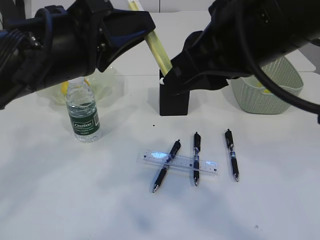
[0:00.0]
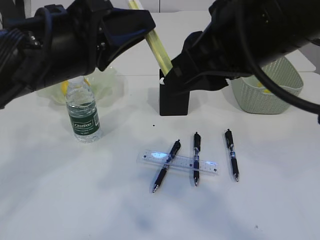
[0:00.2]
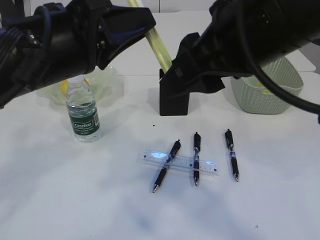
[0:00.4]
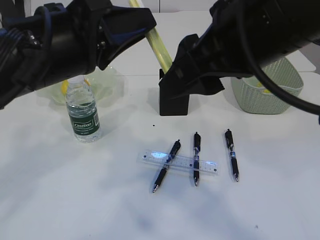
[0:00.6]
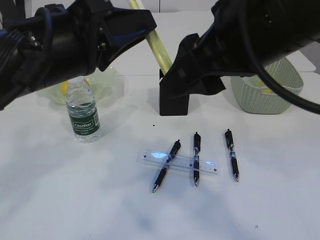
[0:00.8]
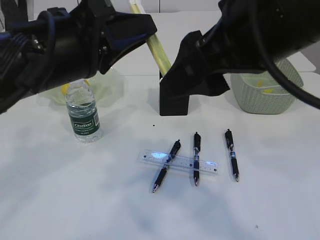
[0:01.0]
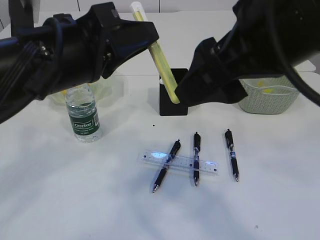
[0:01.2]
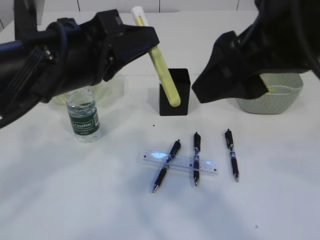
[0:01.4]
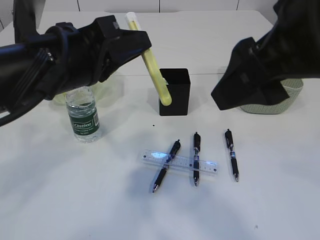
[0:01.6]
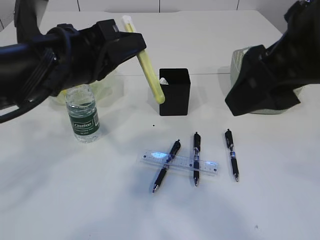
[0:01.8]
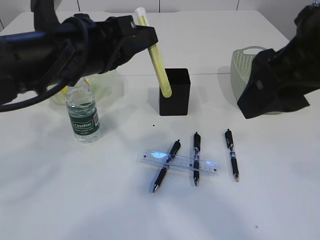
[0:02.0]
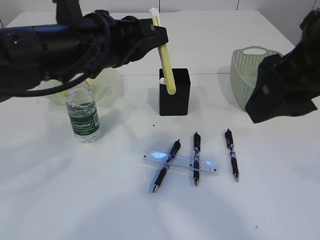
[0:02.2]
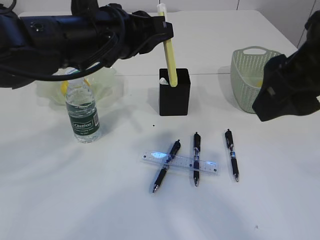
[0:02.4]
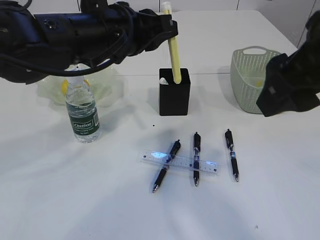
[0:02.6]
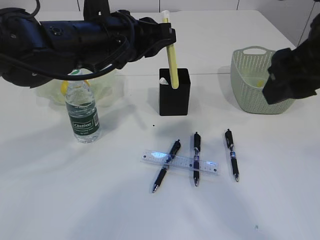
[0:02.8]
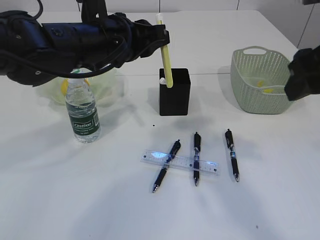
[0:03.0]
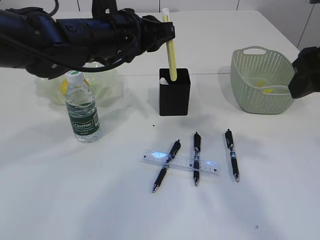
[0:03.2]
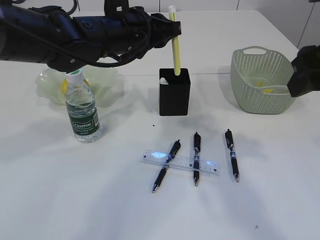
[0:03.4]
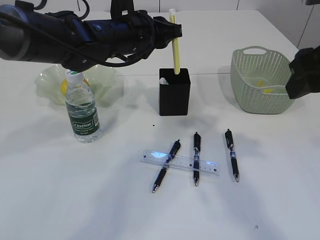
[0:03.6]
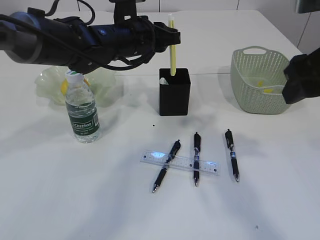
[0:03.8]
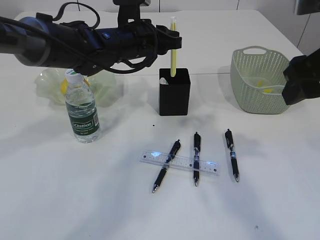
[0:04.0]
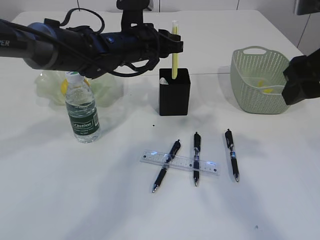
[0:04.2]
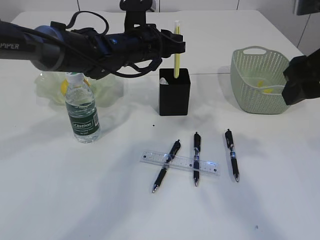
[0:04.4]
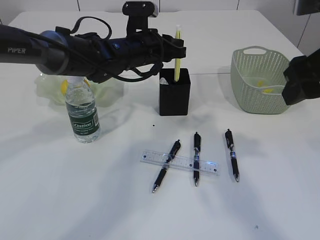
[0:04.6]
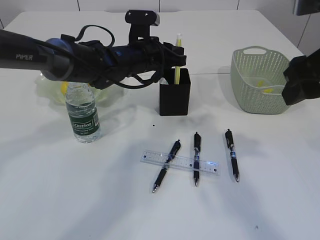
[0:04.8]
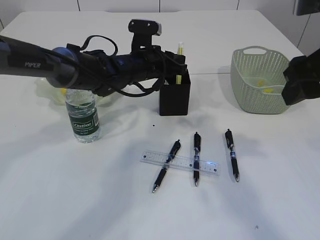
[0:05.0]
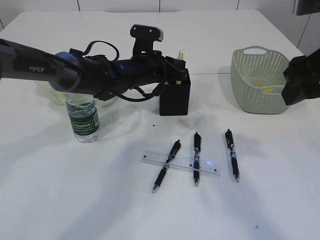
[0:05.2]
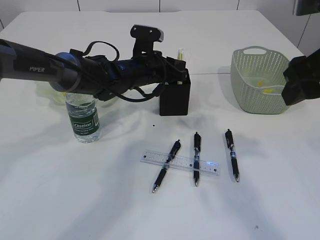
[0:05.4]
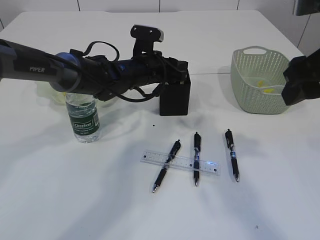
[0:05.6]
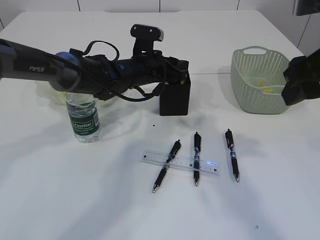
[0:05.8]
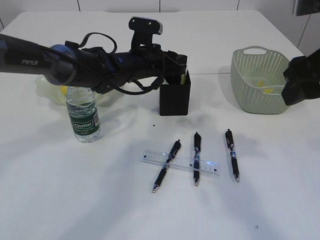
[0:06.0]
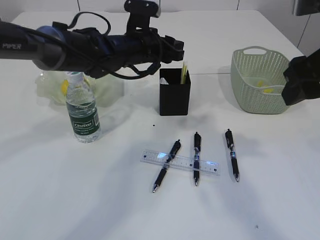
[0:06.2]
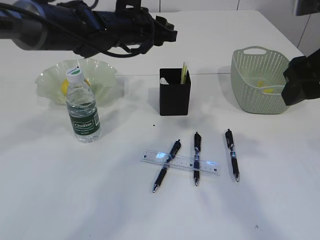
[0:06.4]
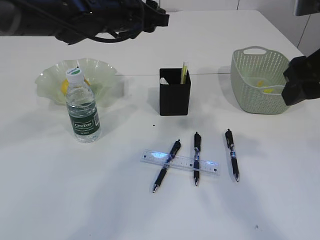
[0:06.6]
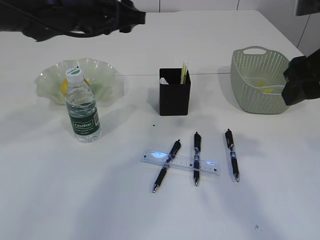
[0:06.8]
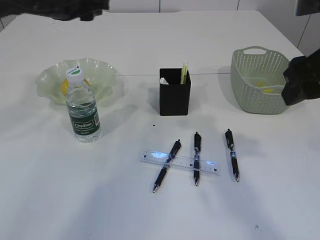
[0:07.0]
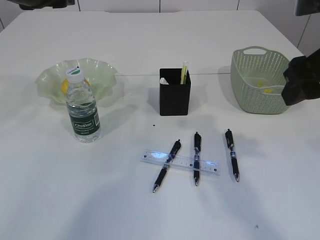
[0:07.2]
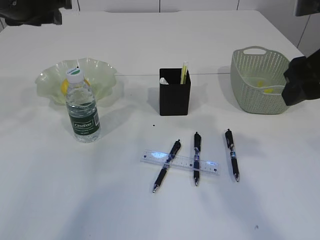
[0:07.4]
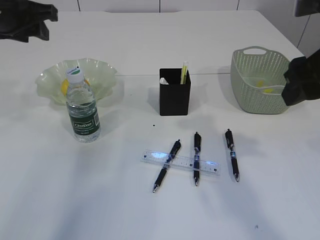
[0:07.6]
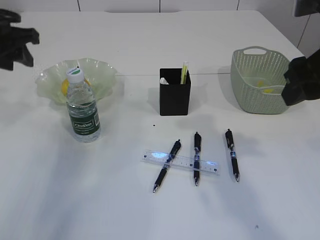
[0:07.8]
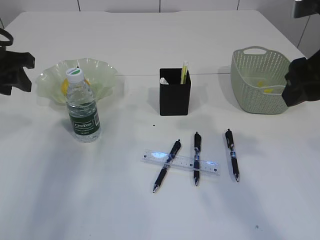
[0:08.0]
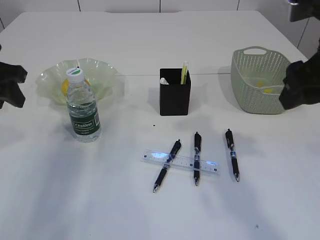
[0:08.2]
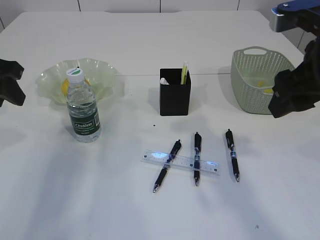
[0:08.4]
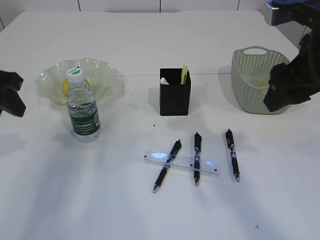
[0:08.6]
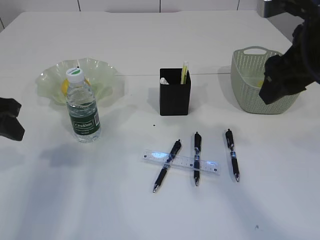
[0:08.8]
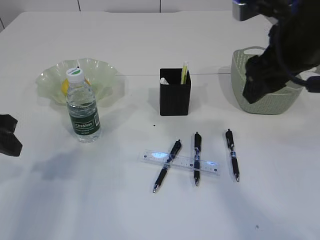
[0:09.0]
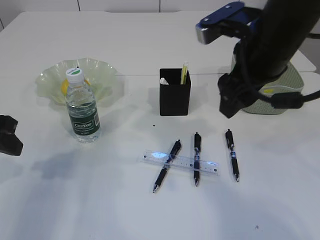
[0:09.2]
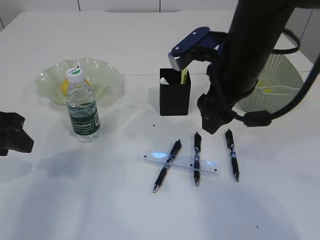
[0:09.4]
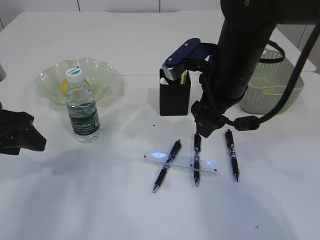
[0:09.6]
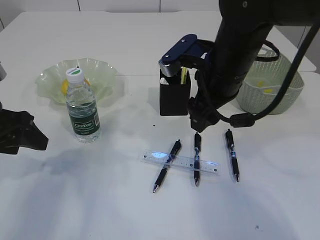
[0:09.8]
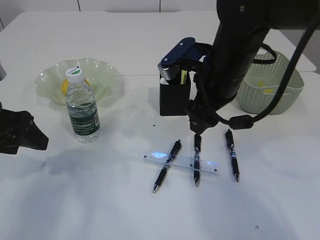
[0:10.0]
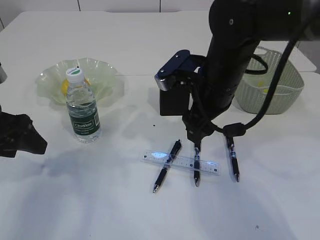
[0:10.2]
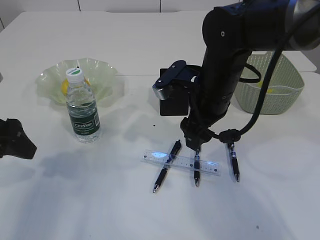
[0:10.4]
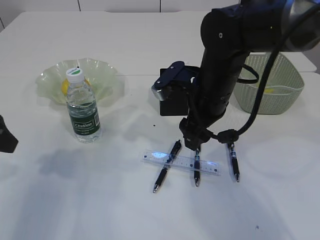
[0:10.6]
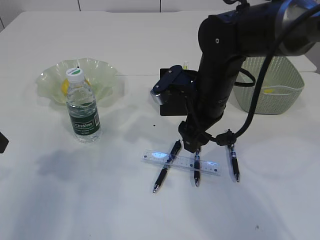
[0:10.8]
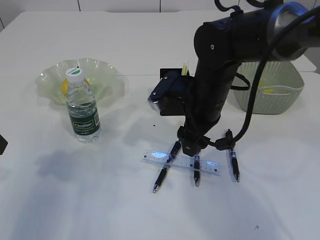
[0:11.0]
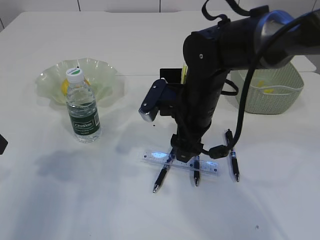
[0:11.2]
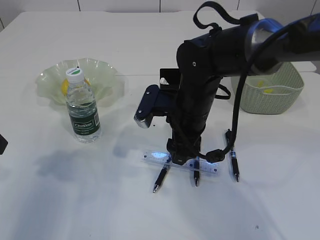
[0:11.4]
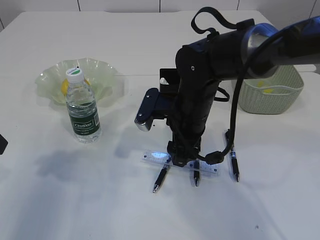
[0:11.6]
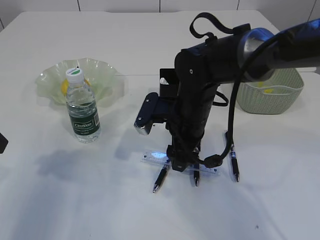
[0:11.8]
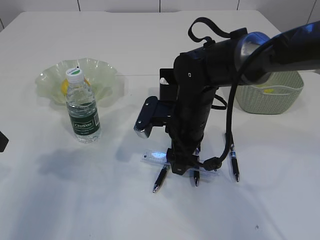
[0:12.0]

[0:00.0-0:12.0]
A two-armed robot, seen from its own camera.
Step, 0:01.4 to 0:06.2: place the yellow knife into the pen holder.
0:00.0 to 0:01.6: The right gripper opens its fingers.
0:01.6 to 0:03.0: The right gripper goes about 10 cm to the right, while the left gripper heads forward, covering roughly 10 cm.
0:03.0 to 0:04.4: The left gripper heads forward and downward, covering about 10 cm.
0:04.4 to 0:06.0: The left gripper opens its fingers.
0:06.0 to 0:07.6: The left gripper is displaced to the left and upward by approximately 25 cm.
0:07.6 to 0:09.0: The left gripper goes some 15 cm backward and downward. Meanwhile the right gripper moves approximately 5 cm.
0:09.0 to 0:10.4: The right gripper is displaced downward, to the left and forward by approximately 15 cm.
0:10.4 to 0:12.0: The right gripper is displaced downward by roughly 5 cm.

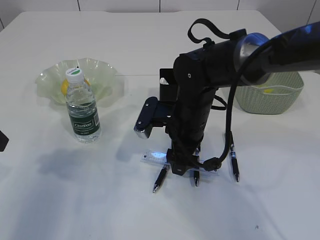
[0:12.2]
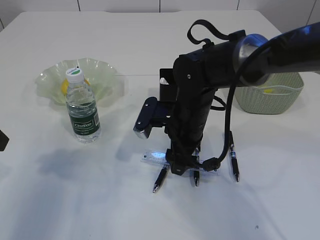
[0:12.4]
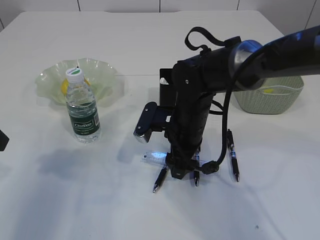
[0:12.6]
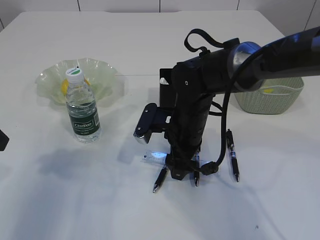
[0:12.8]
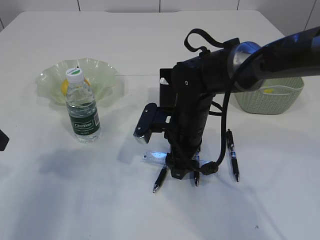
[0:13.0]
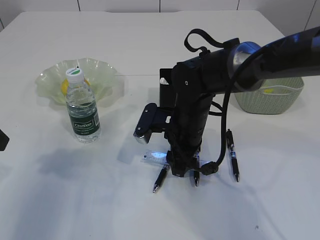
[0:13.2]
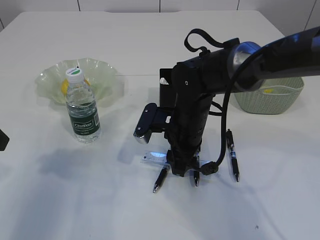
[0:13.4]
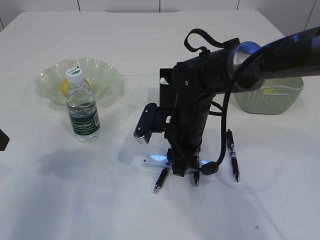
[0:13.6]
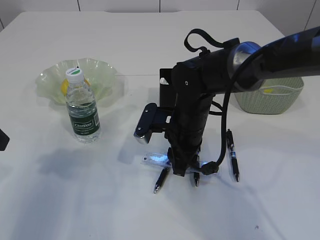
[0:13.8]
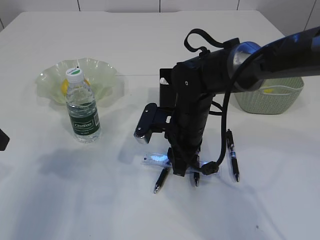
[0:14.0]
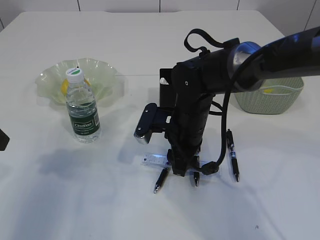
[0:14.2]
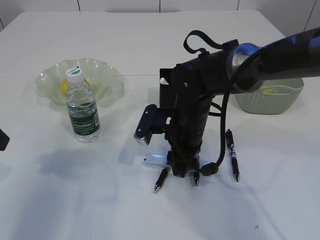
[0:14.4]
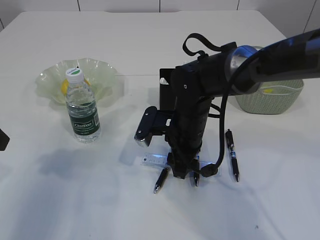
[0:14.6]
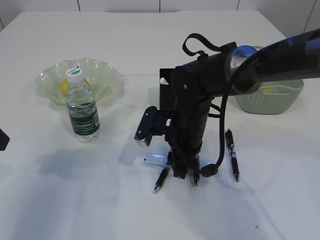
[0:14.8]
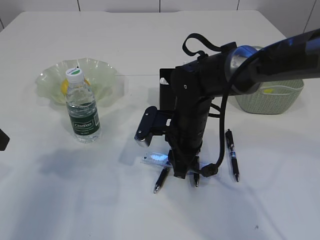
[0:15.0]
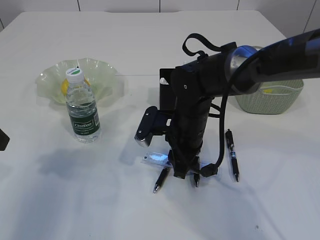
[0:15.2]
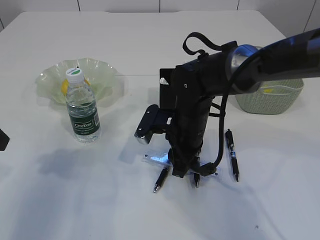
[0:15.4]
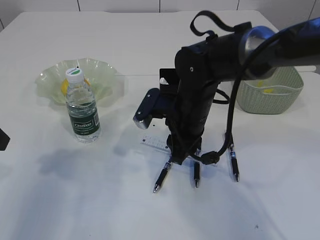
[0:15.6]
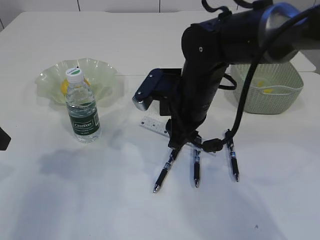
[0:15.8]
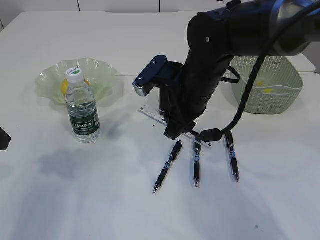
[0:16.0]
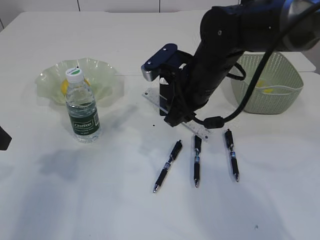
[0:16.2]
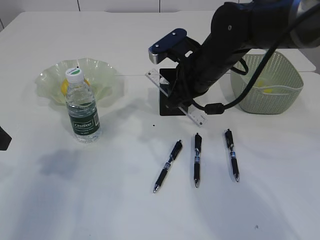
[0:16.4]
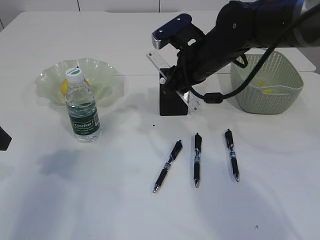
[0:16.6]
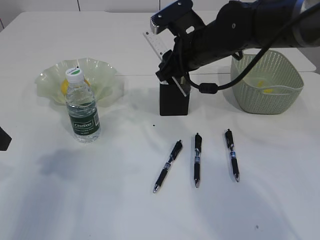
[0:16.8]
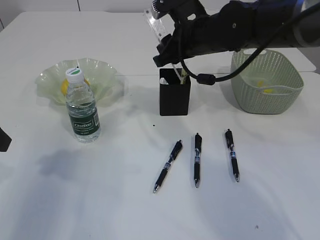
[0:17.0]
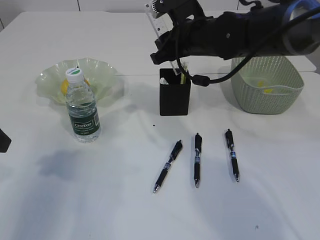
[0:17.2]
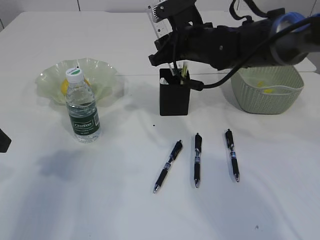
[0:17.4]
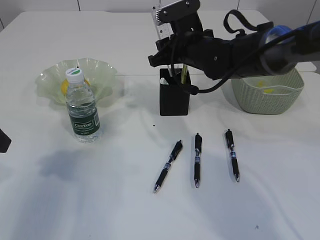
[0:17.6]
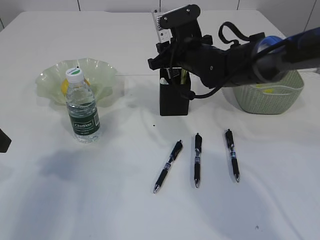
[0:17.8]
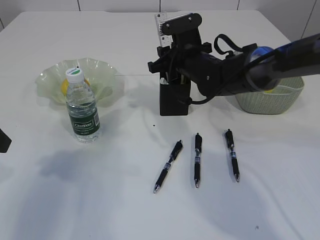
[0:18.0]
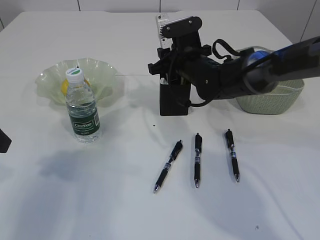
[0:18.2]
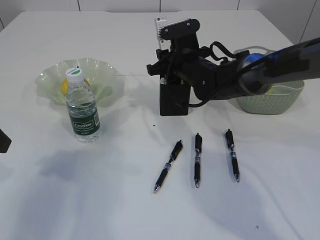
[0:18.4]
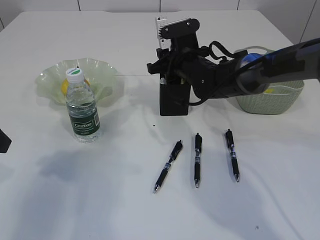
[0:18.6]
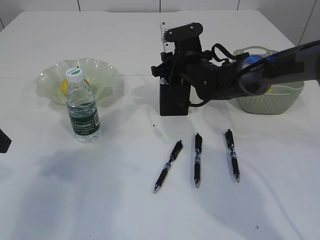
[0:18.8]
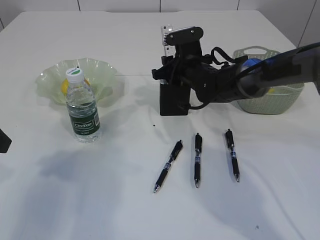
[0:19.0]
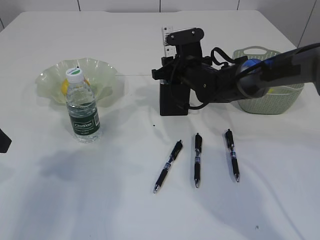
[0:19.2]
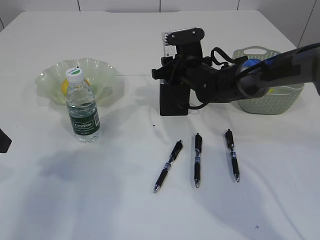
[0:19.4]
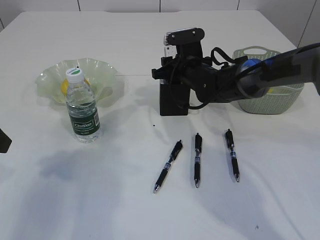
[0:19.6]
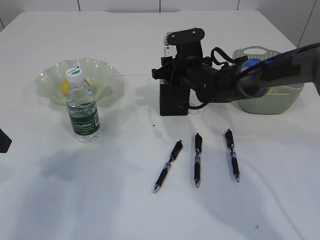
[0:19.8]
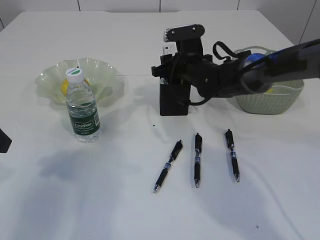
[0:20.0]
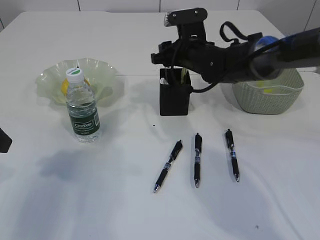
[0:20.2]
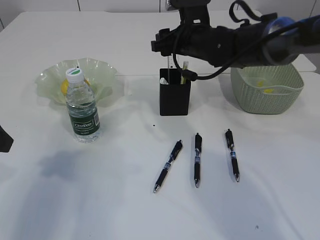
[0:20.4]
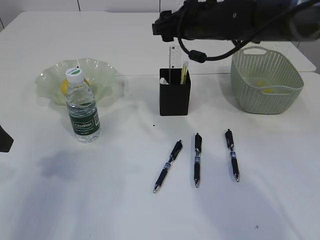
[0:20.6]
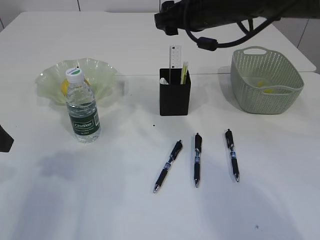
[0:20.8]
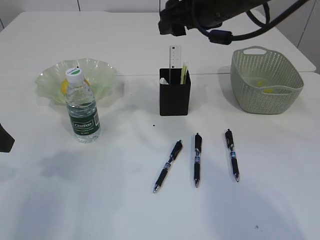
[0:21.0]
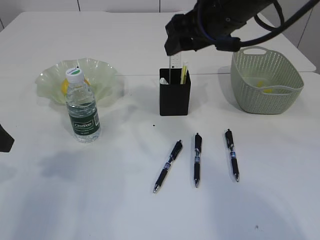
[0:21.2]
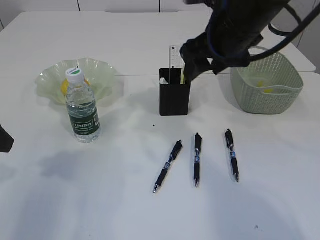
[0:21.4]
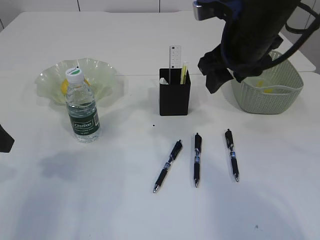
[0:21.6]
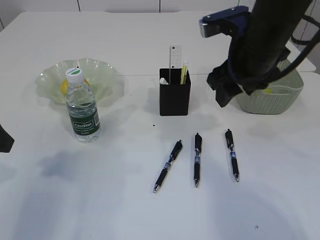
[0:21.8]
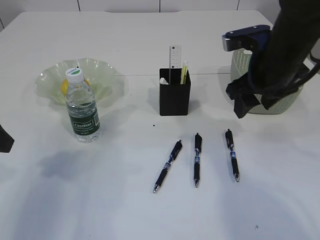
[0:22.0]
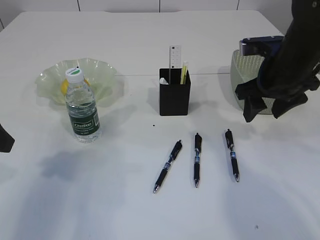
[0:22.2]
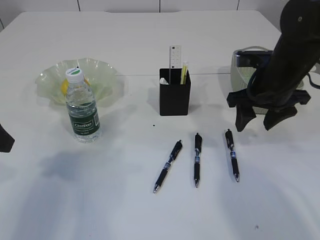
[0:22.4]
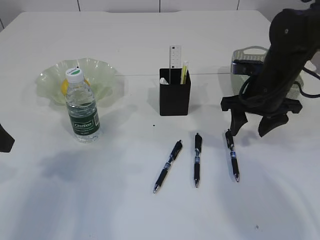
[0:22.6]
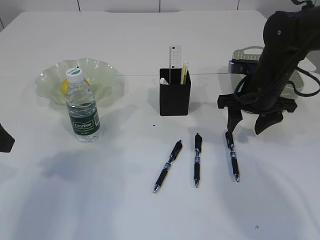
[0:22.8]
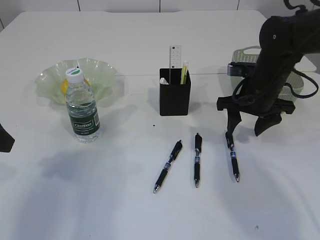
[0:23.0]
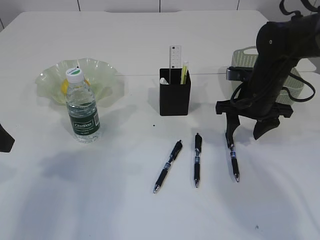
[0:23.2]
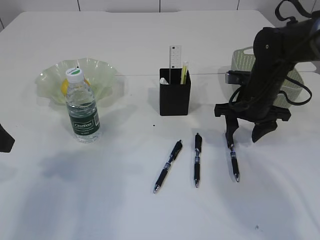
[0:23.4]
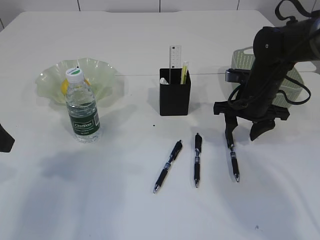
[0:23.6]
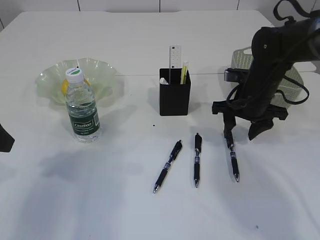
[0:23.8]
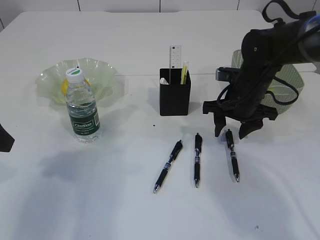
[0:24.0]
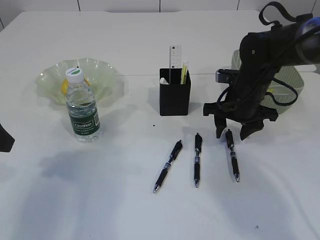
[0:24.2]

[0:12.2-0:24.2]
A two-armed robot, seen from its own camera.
Step, 0:12.2 to 0:15.6: pick up the ruler.
Step, 0:15.8 to 0:20.4: Place the ruler into the pen holder.
0:12.2 to 0:13.8: The right gripper closes.
0:13.8 to 0:15.2: Both grippers stay about where they are.
0:15.2 to 0:16.6: The right gripper goes about 10 cm upward.
0:16.6 to 0:18.2: The right gripper heads forward and downward, covering some 10 cm.
0:18.2 to 0:19.8: The grippers make only small movements.
0:19.8 to 0:21.2: The right gripper goes some 20 cm upward and backward.
0:21.2 to 0:22.6: The right gripper shifts approximately 15 cm downward and to the right.
0:22.6 to 0:24.2: The right gripper moves about 5 cm.
